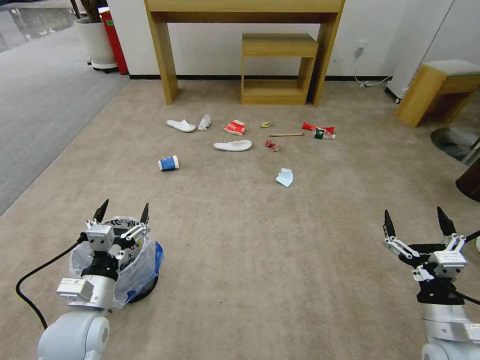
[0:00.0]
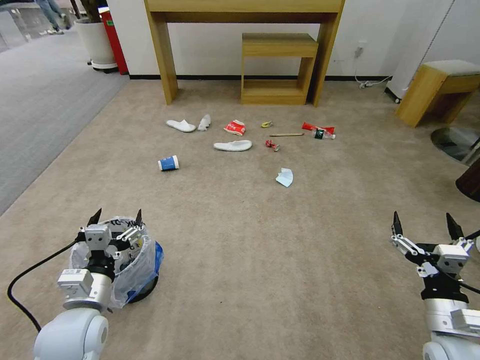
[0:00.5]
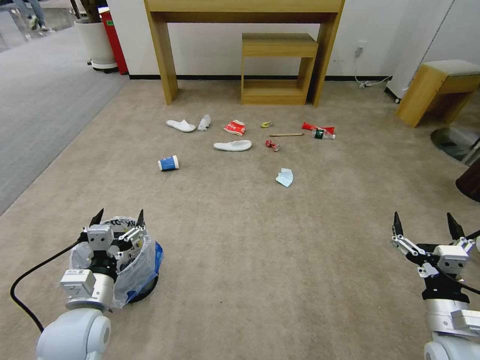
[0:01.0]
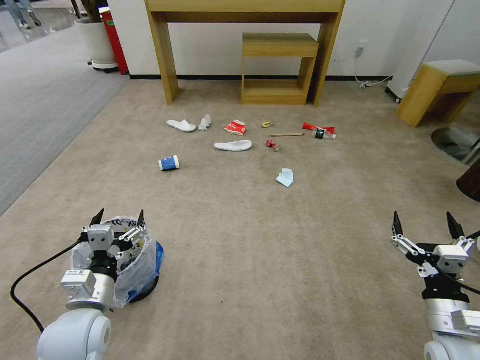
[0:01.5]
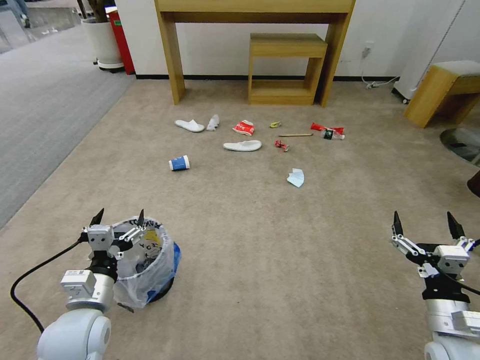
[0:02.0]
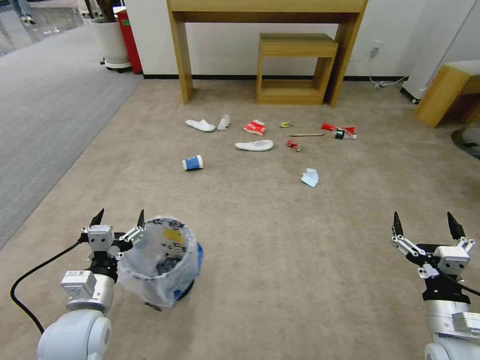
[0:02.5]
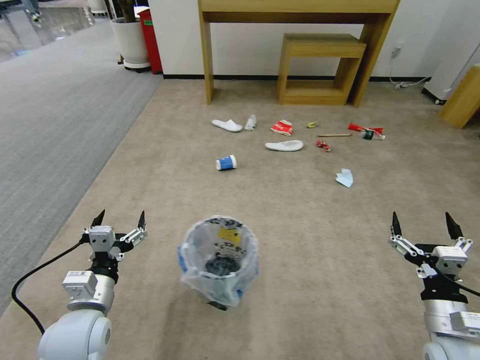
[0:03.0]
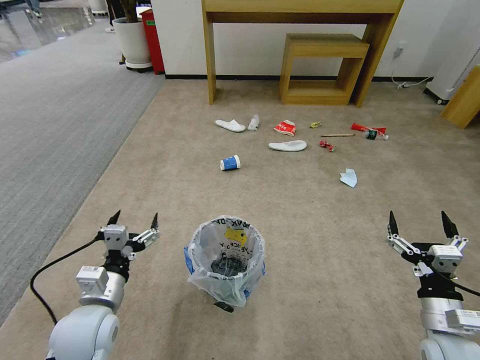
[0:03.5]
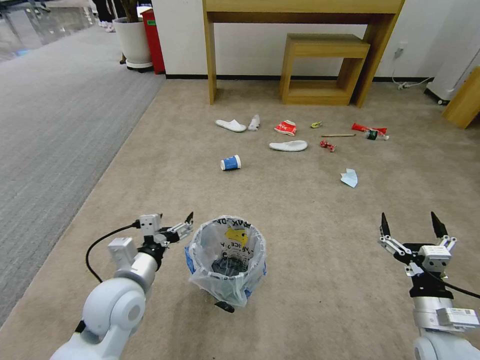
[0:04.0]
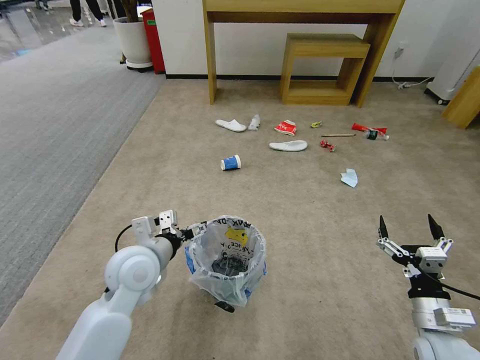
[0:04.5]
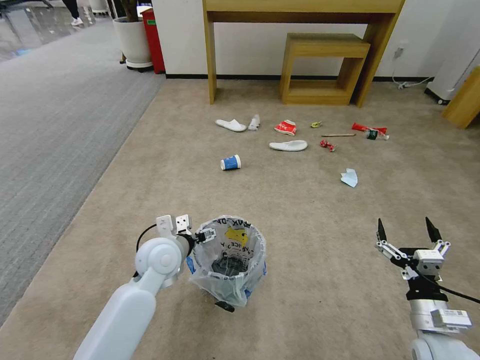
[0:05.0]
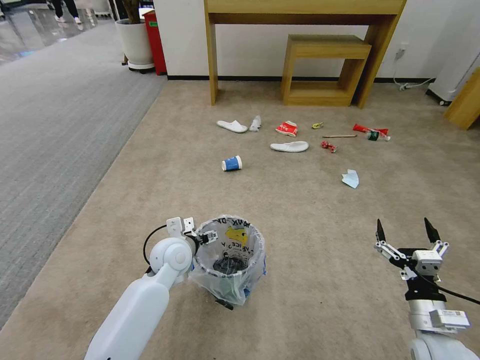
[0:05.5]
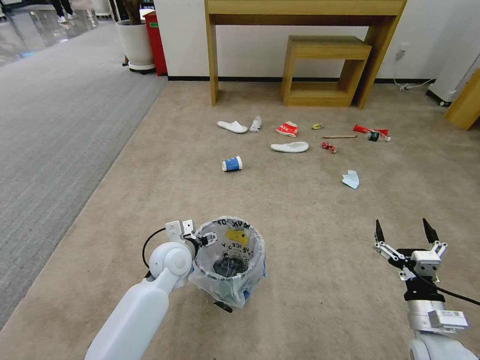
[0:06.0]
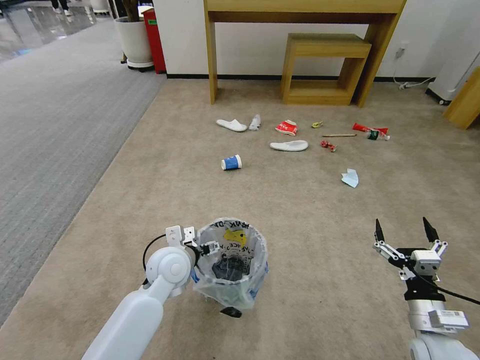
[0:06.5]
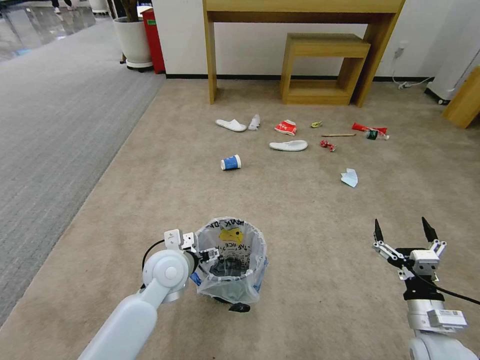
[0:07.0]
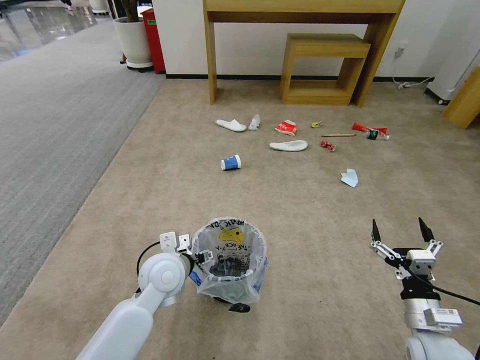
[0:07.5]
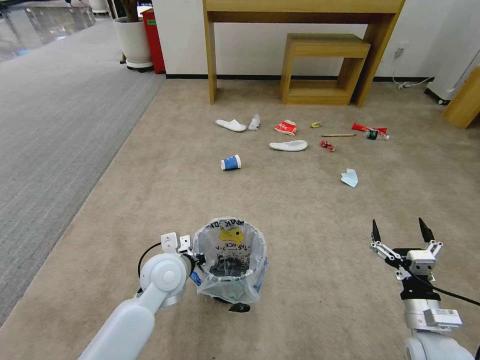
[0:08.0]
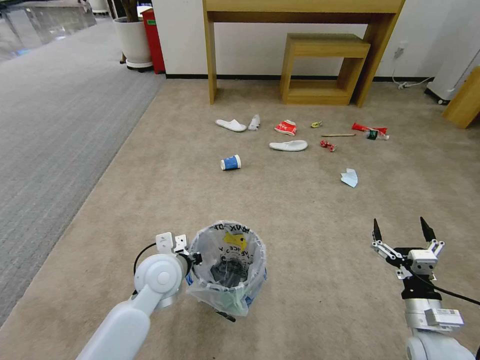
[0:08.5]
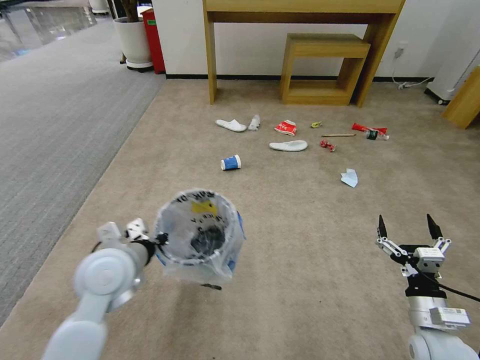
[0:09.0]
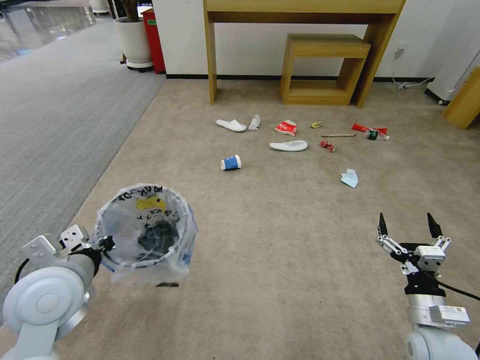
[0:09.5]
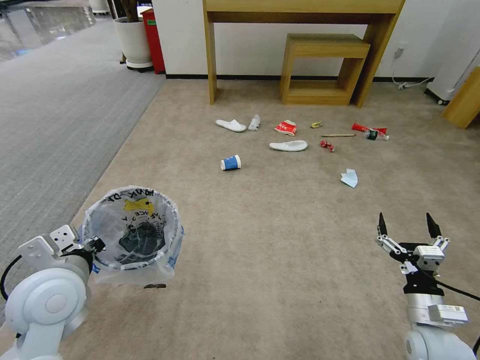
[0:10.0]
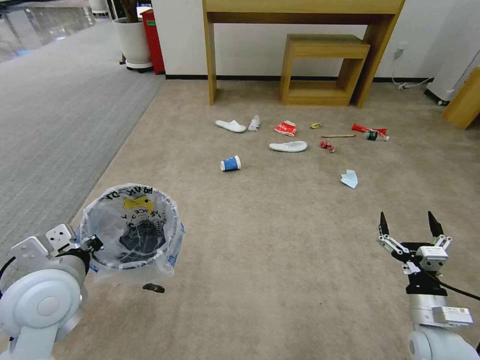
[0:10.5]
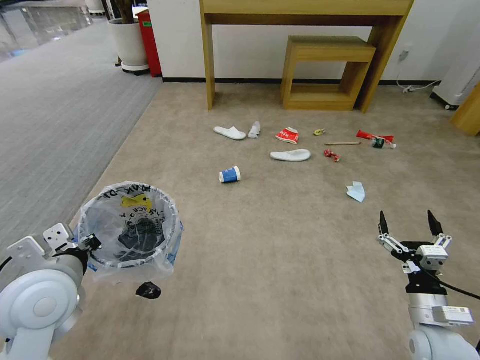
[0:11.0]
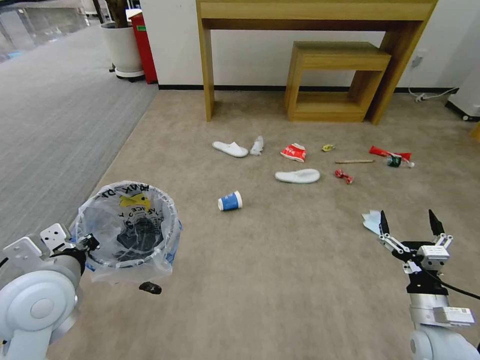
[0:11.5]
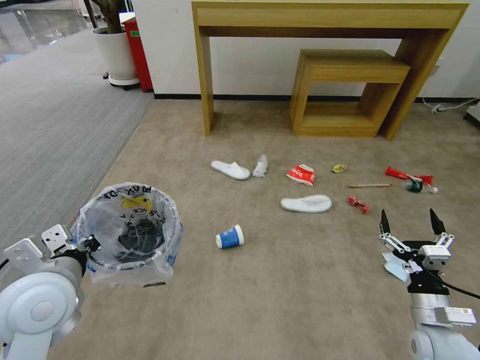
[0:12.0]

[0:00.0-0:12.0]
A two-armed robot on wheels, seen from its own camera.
Task of the whole recording: Pick up the trash bin and place the garbage on the floor into it.
0:02.0 to 0:04.0: The left gripper travels to the right by some 5 cm.
0:04.0 to 0:06.0: The left gripper goes approximately 15 cm forward, downward and to the right.
0:06.0 to 0:08.0: The left gripper moves approximately 5 cm, and closes up.
0:08.0 to 0:10.0: The left gripper shifts about 20 cm to the left, upward and backward.

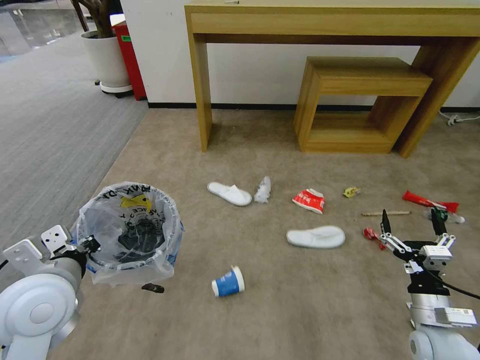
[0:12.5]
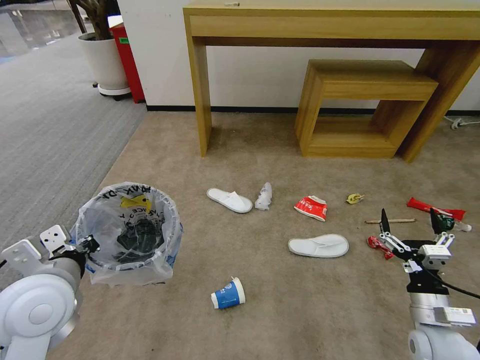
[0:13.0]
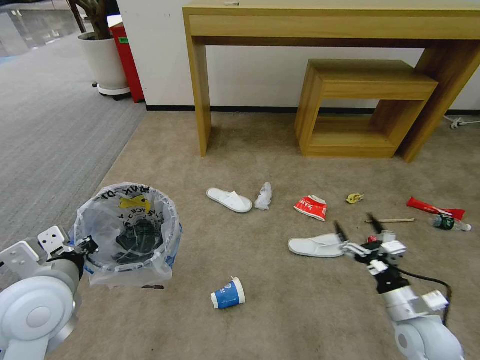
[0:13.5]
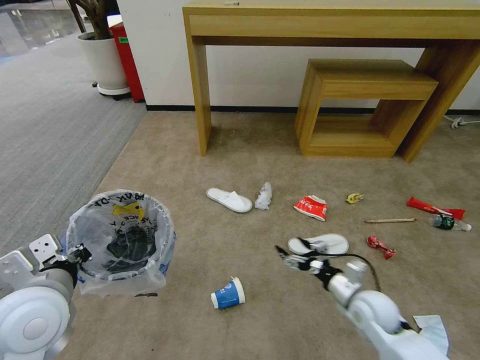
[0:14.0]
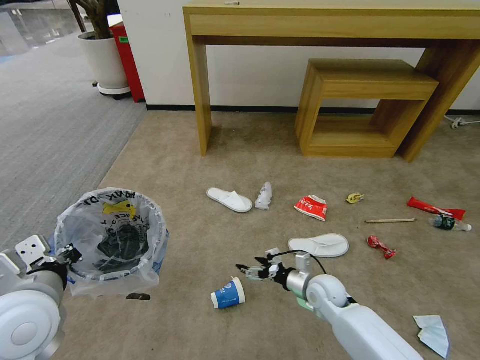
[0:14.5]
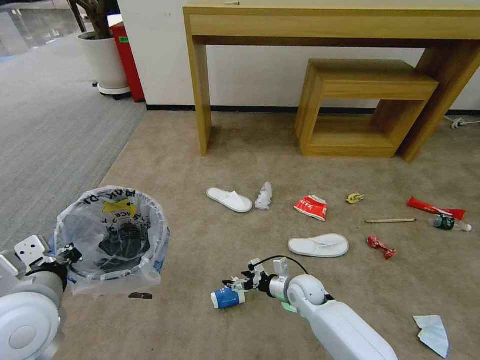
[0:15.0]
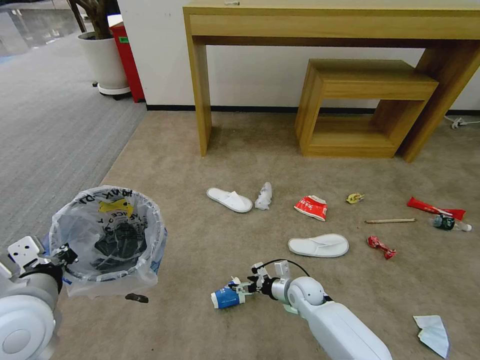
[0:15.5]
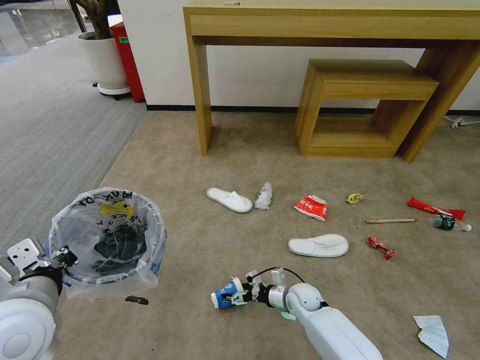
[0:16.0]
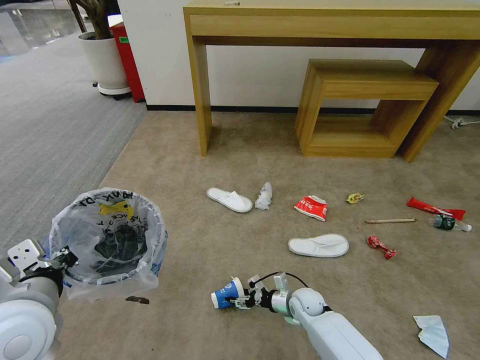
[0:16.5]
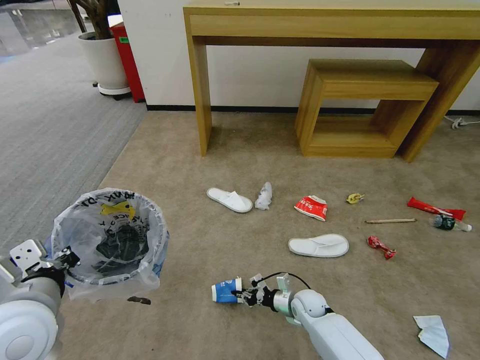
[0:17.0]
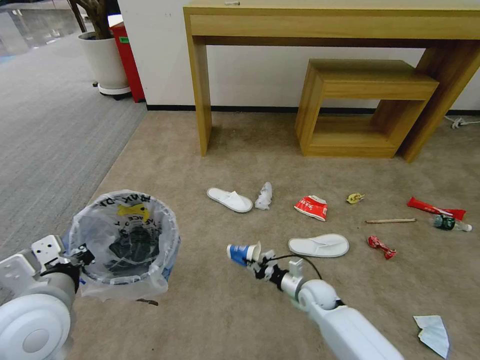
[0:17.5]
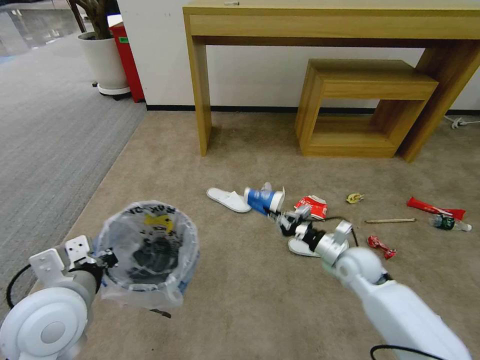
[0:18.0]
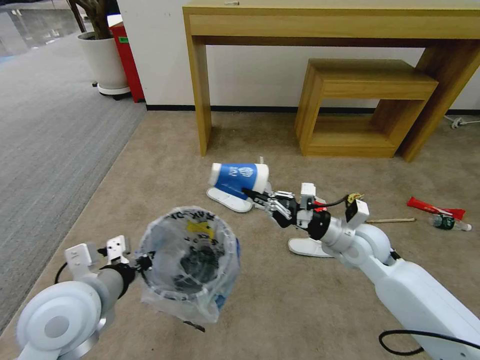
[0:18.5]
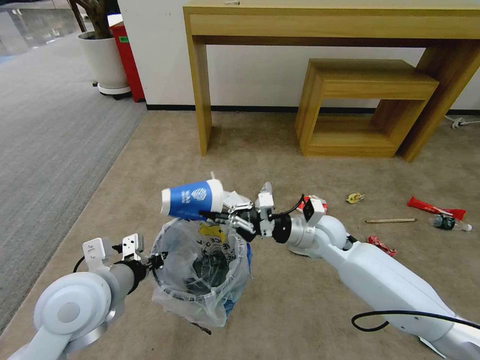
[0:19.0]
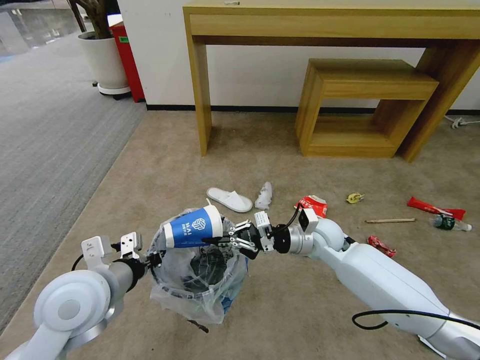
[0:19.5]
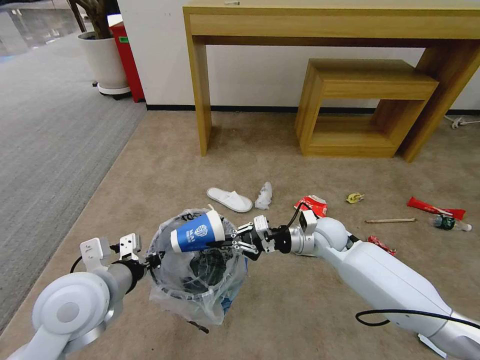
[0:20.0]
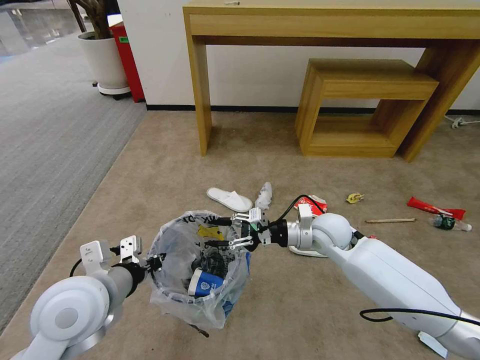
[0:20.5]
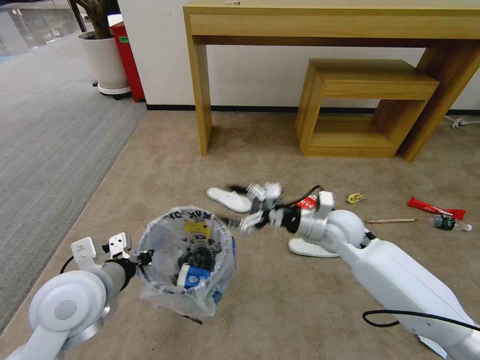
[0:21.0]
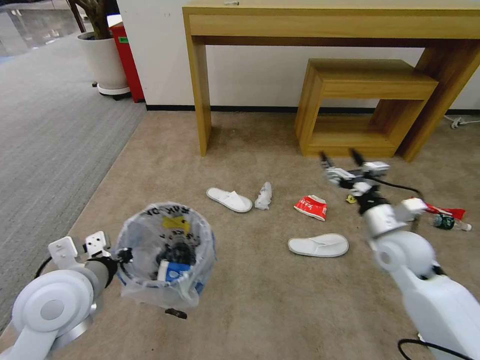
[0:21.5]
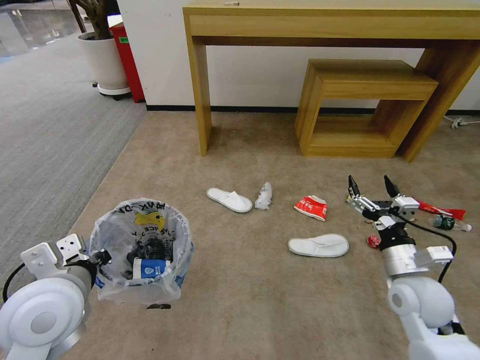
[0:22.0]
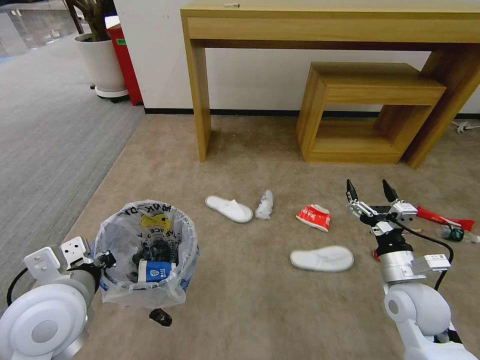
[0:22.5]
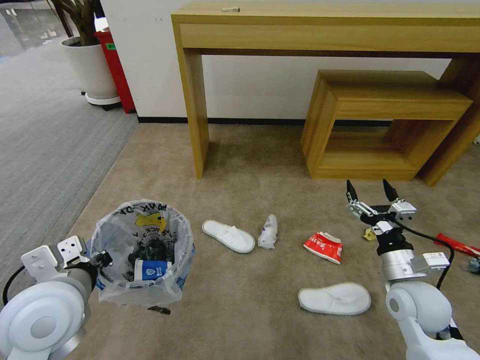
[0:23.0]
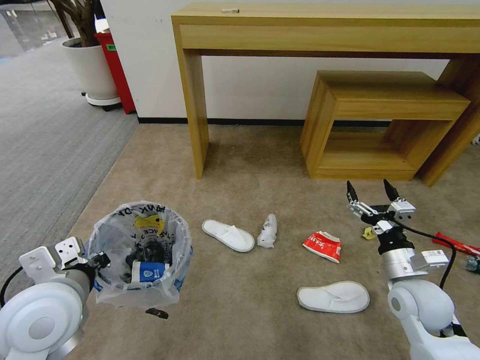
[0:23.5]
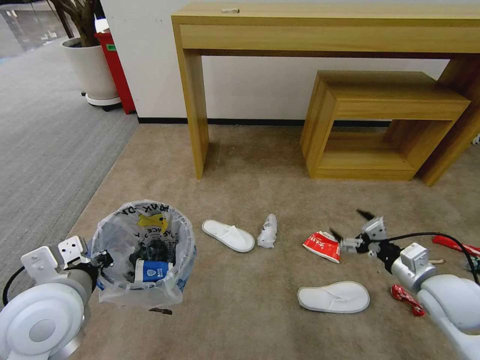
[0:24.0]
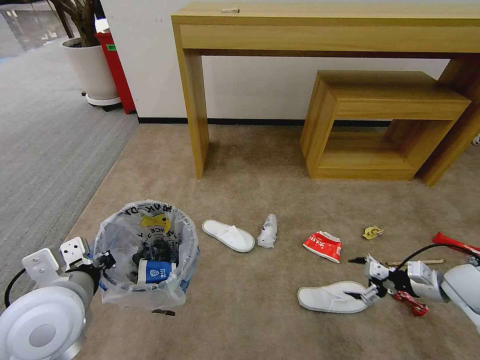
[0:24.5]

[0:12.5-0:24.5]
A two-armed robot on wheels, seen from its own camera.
Task of the whole recording: Pick up the trash bin and place the garbage on the floor into it.
0:12.5 to 0:14.5: The right gripper is displaced to the left, forward and downward by some 25 cm.
0:14.5 to 0:16.5: The right gripper shifts some 10 cm downward, and closes its fingers.
0:16.5 to 0:18.5: The right gripper is displaced upward by about 30 cm, and closes its fingers; the left gripper ends up some 5 cm from where it was.
0:18.5 to 0:20.5: The right gripper shifts approximately 5 cm to the left, and opens up.
0:20.5 to 0:22.5: The right gripper shifts roughly 20 cm backward and to the right, and opens its fingers.
0:22.5 to 0:24.5: The right gripper heads to the right, covering approximately 15 cm.

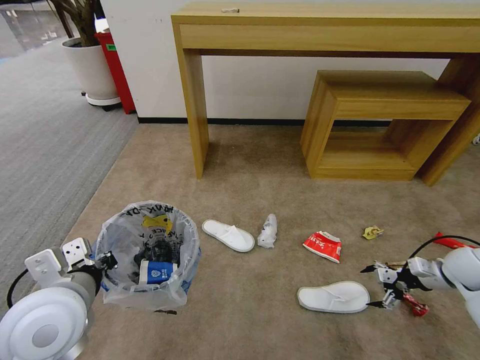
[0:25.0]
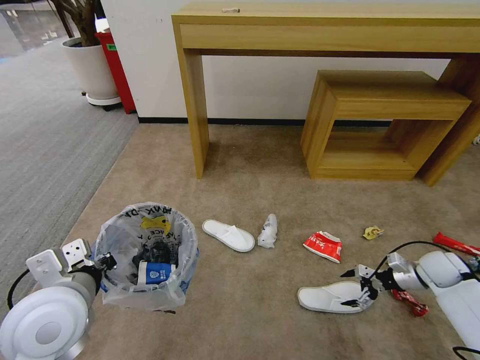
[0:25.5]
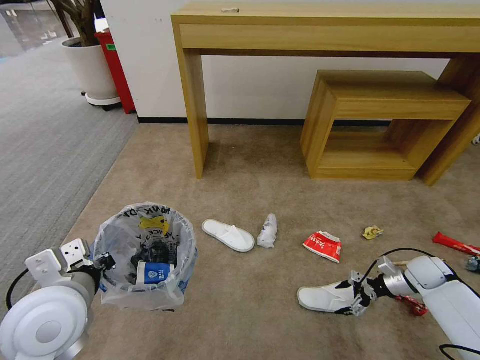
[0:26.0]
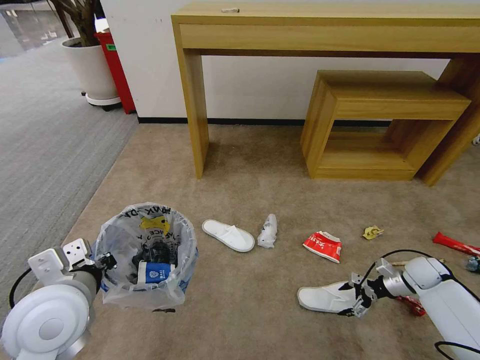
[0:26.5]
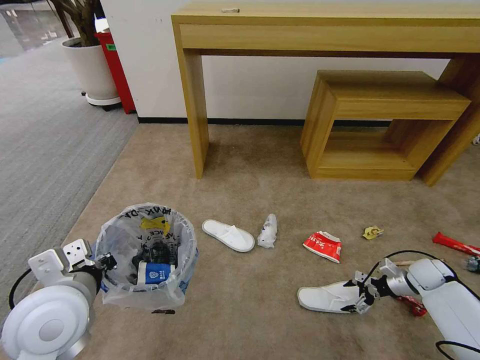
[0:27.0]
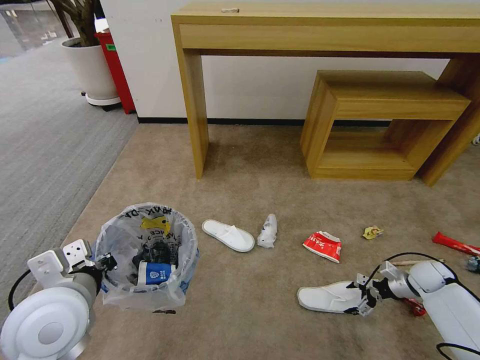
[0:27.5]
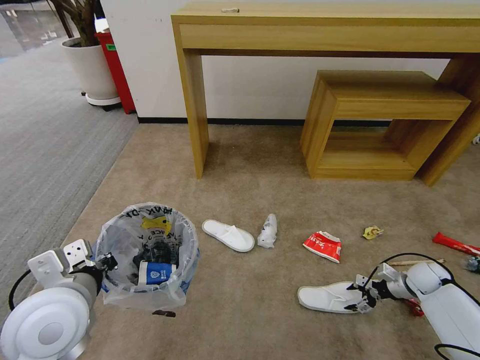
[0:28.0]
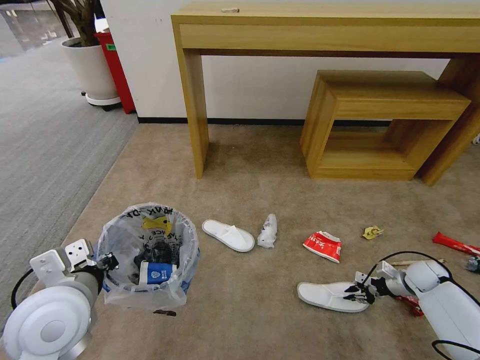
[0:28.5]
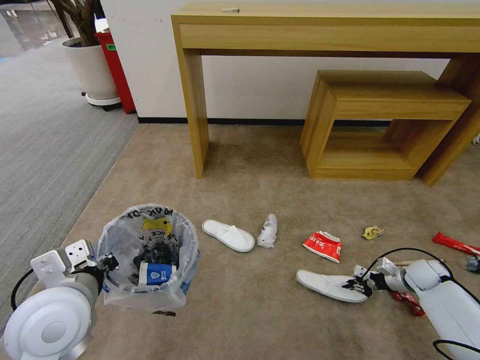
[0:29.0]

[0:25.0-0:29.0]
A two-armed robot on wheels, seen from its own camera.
Task of the whole recording: Pick up the trash bin and place the garbage on the floor into it.
0:25.0 to 0:27.0: The right gripper shifts approximately 10 cm downward.
0:27.0 to 0:29.0: The right gripper closes its fingers.
